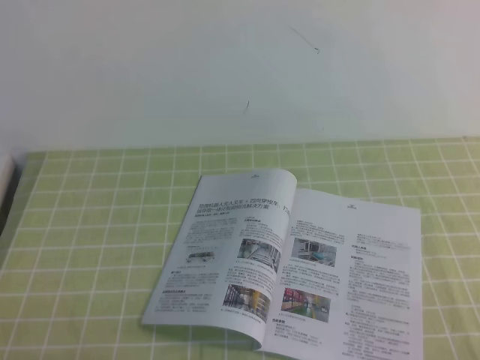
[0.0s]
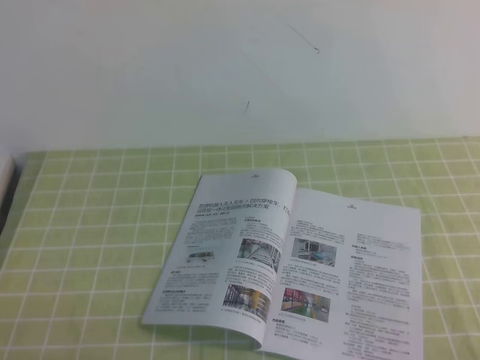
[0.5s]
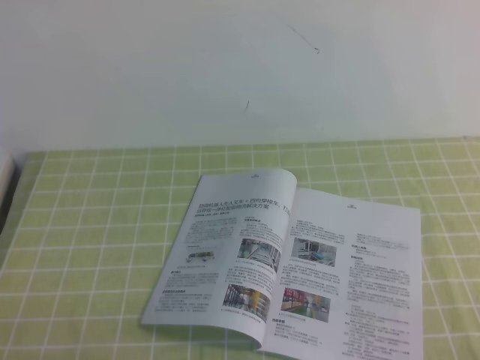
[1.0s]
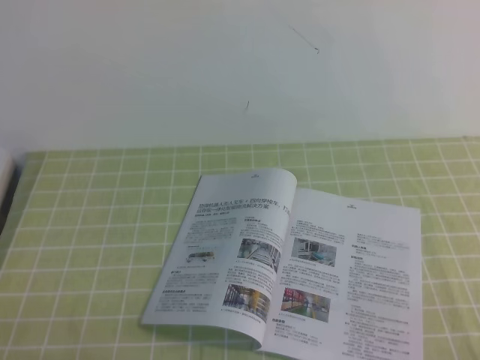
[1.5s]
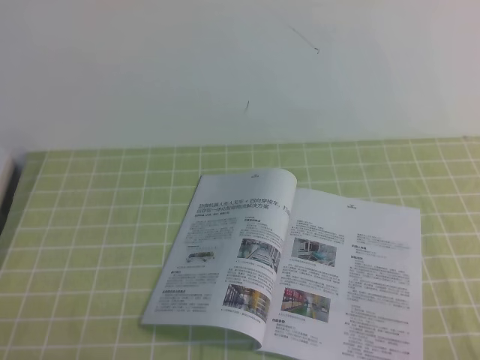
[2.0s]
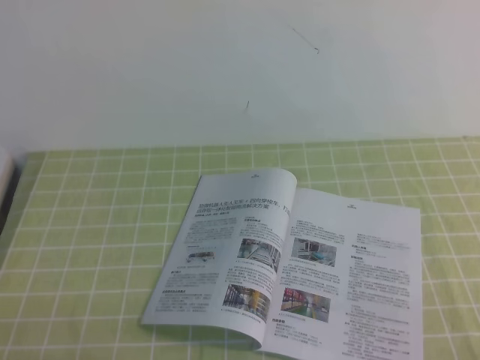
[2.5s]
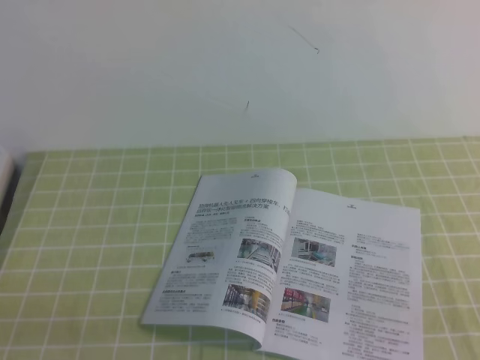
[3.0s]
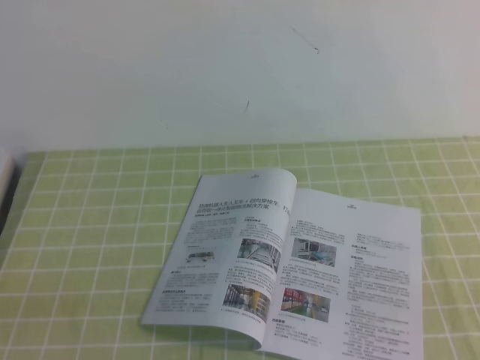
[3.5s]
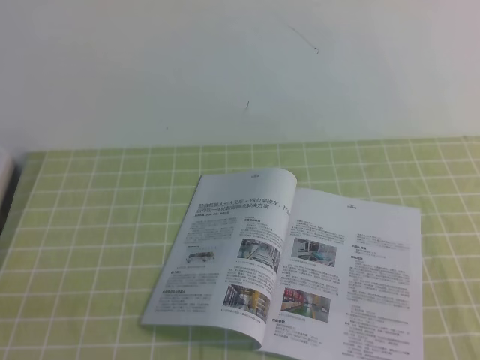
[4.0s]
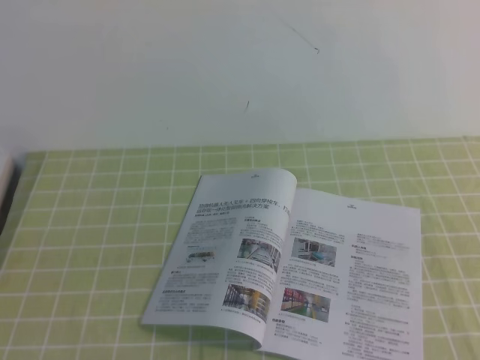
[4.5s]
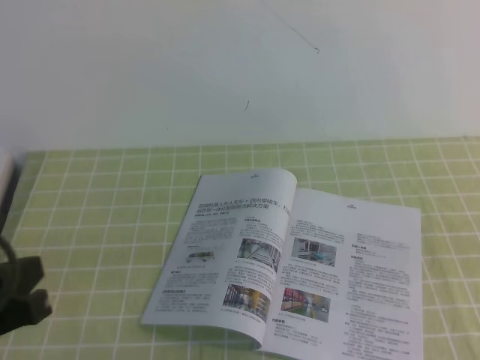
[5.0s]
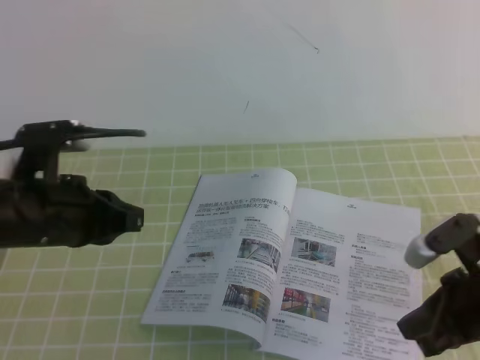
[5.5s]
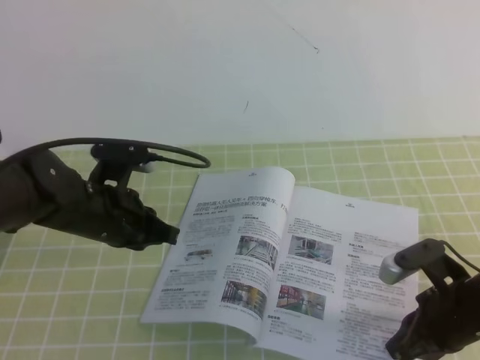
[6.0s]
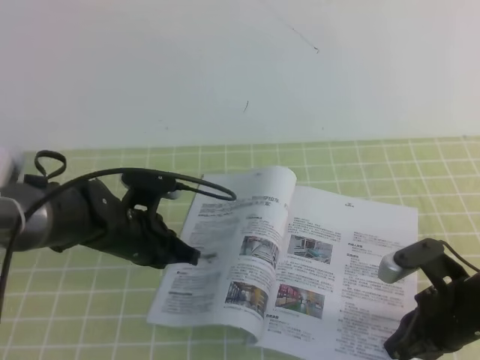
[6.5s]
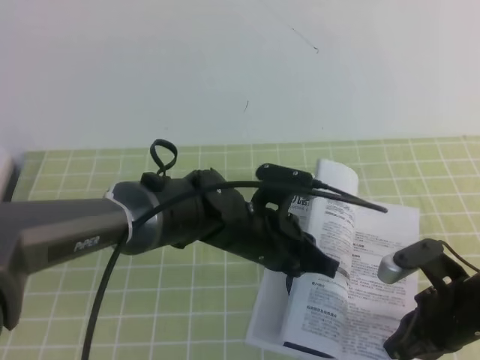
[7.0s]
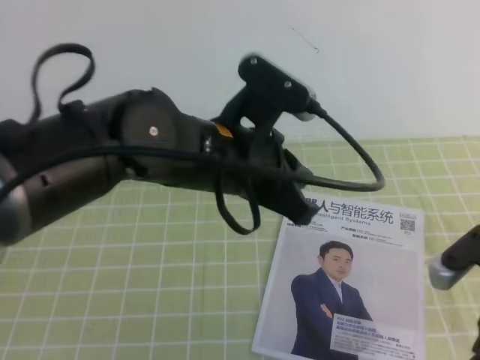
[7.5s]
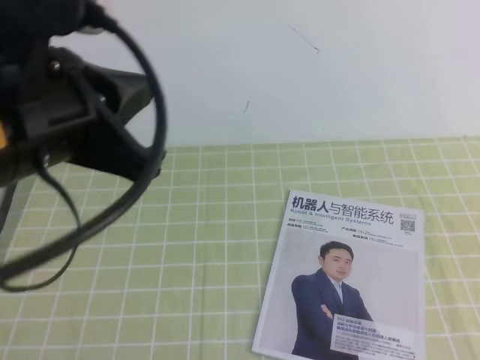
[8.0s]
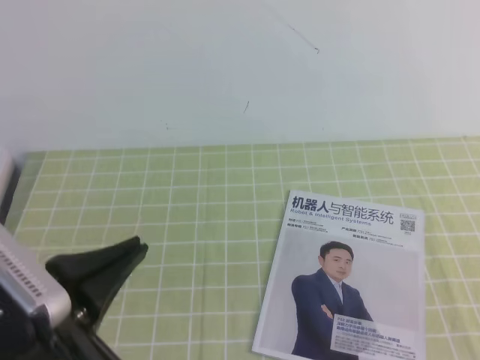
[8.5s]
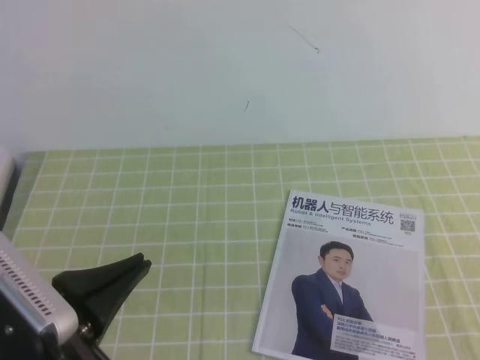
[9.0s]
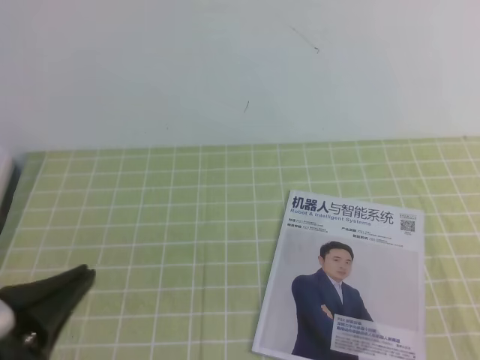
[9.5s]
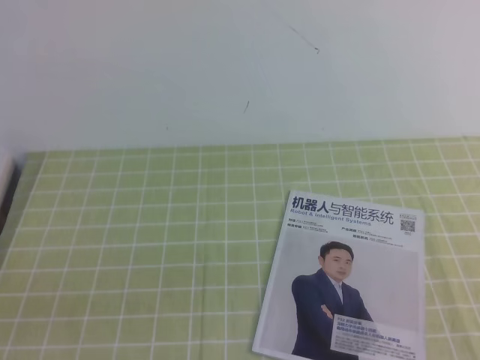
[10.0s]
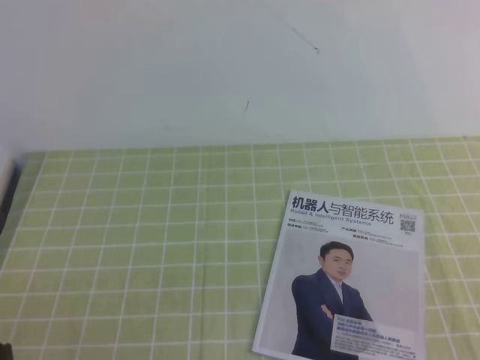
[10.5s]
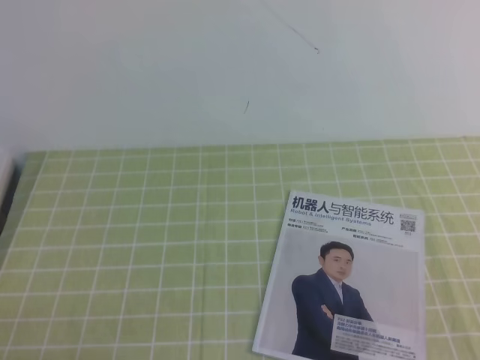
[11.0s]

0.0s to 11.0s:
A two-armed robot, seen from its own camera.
Task of the whole recording: on the green tablecloth, hold the book with one hand and close it with the other.
3.5s to 5.5s: The right gripper is displaced forward and to the left by roughly 15 cm. Meanwhile the left gripper shifts about 20 cm forward.
5.5s to 7.5s: The left gripper is displaced to the right by some 20 cm; the right gripper shifts some 5 cm downward.
7.5s to 9.0s: The left gripper heads backward and to the left, covering some 25 cm, while the right gripper travels backward, upward and to the right by roughly 20 cm.
9.0s to 11.0s: The left gripper is displaced downward, to the left and backward by some 15 cm.

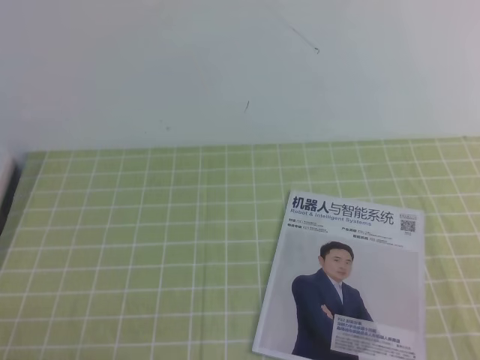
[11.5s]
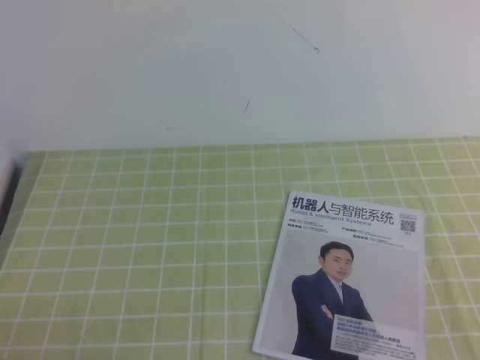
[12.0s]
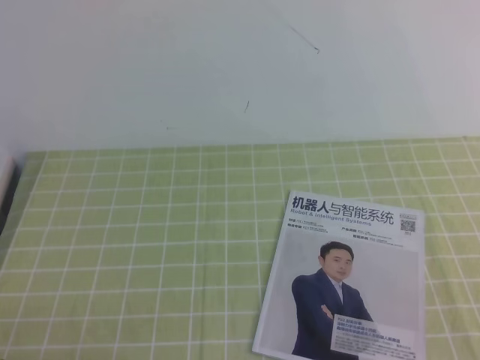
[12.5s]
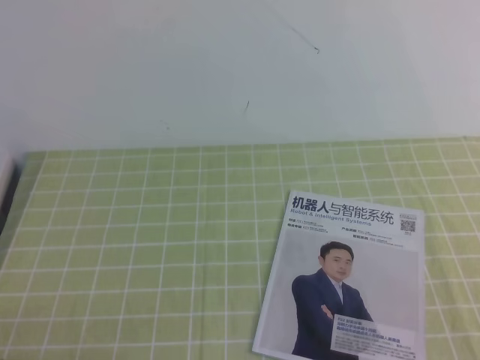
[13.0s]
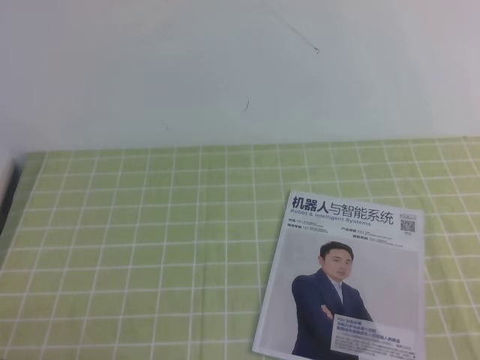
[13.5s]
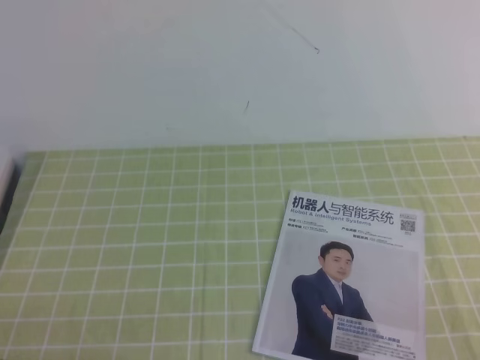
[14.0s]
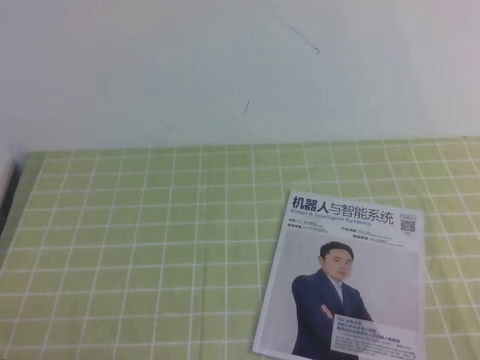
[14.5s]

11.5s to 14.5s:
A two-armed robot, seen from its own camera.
Task of the whole recording: on the green tablecloth, hold the book with one hand and close it with the other.
11.5s to 13.0s: Both grippers stay about where they are.
